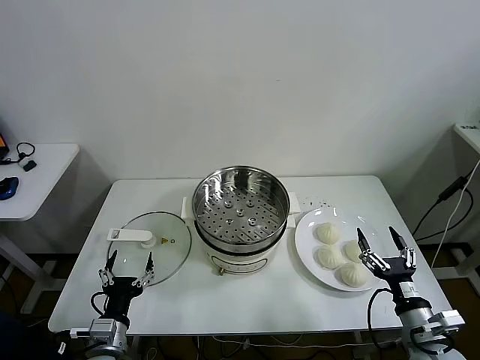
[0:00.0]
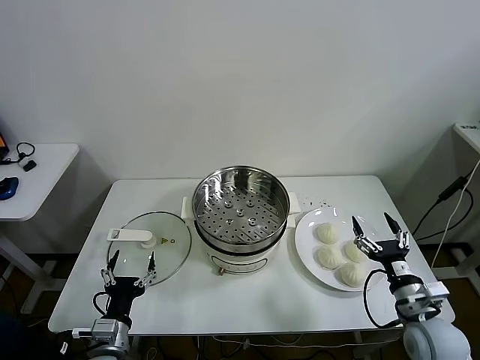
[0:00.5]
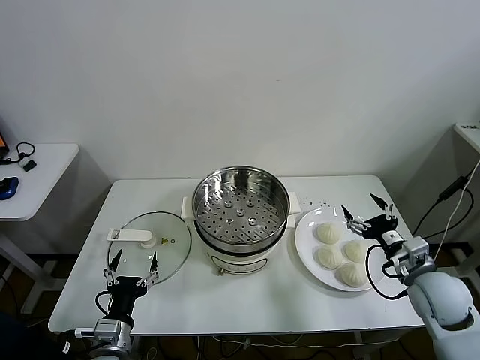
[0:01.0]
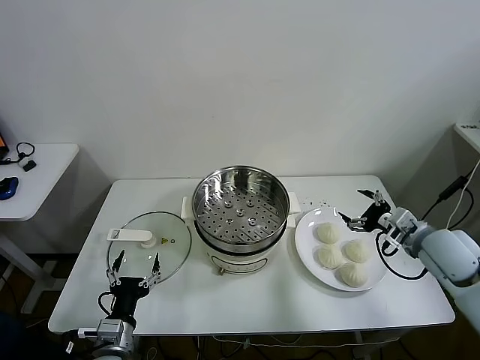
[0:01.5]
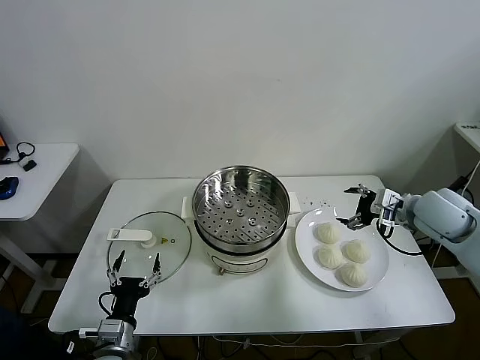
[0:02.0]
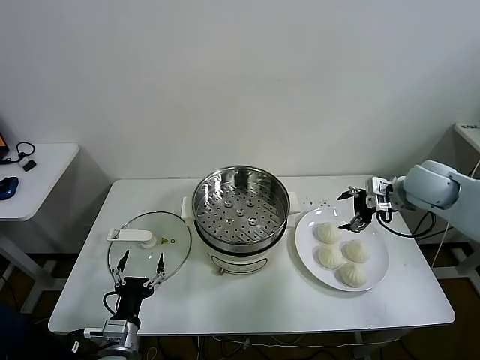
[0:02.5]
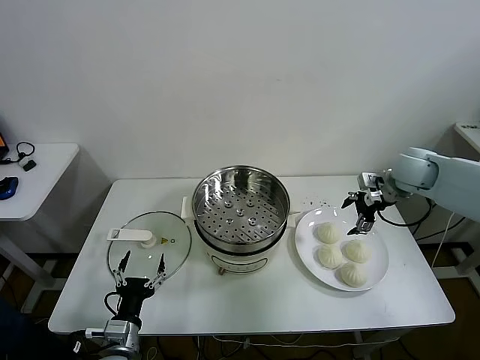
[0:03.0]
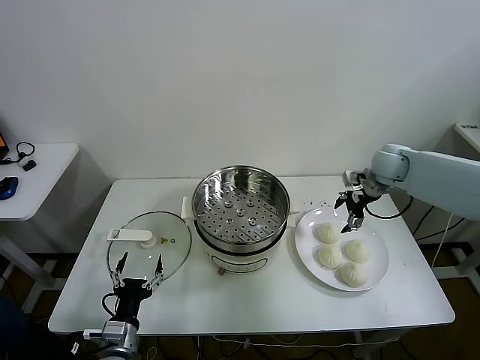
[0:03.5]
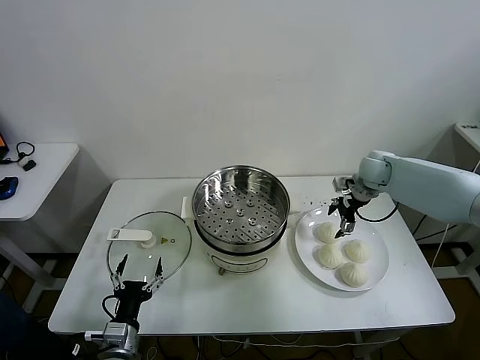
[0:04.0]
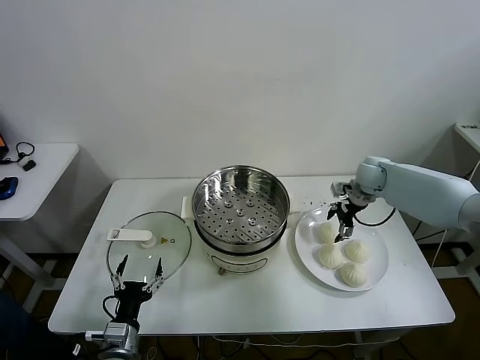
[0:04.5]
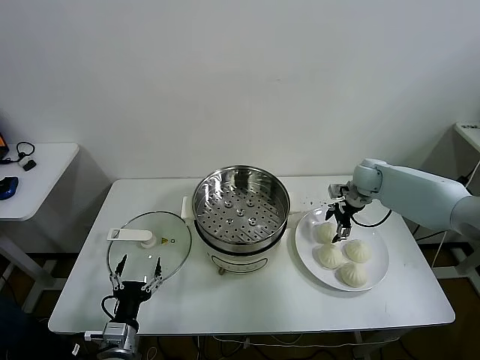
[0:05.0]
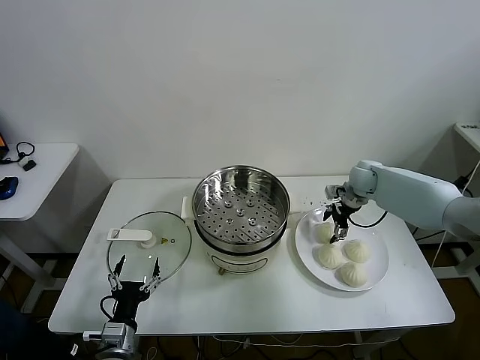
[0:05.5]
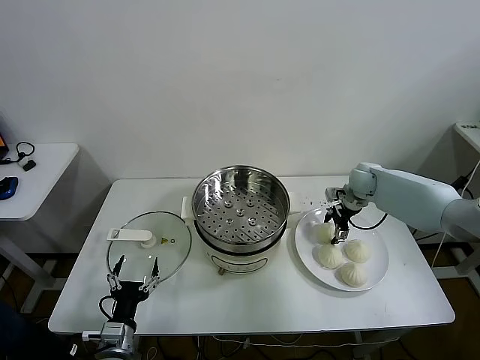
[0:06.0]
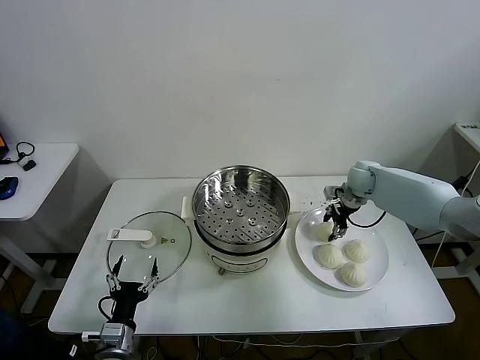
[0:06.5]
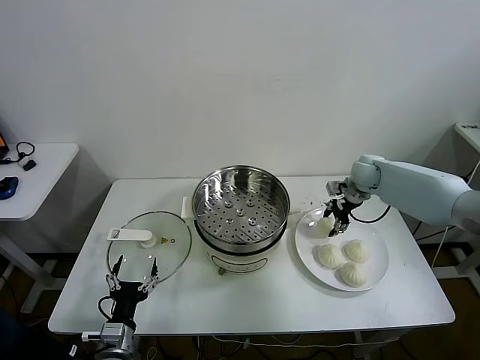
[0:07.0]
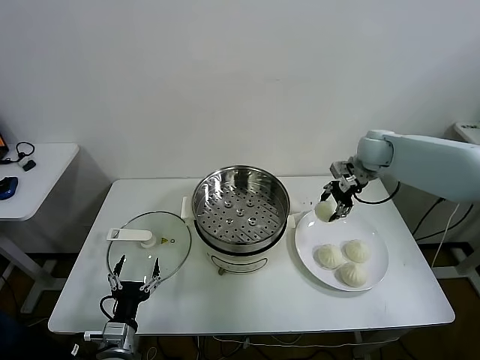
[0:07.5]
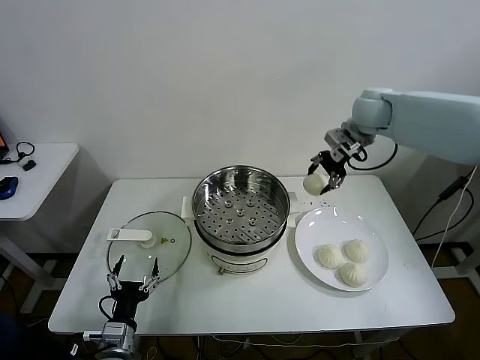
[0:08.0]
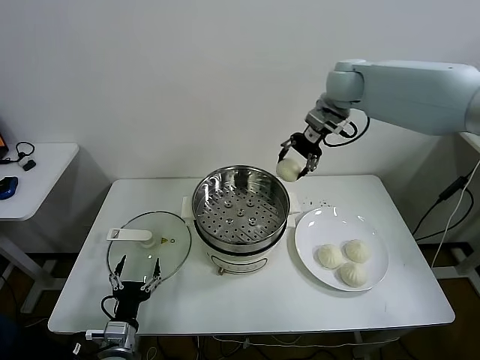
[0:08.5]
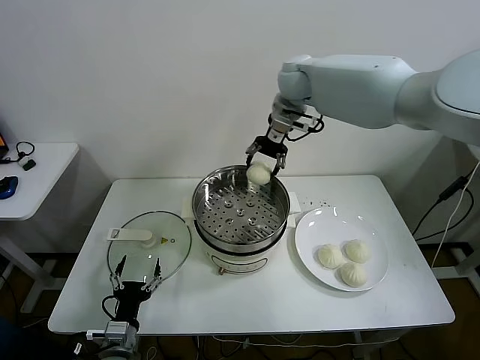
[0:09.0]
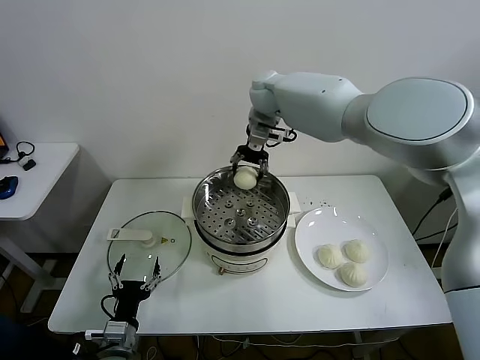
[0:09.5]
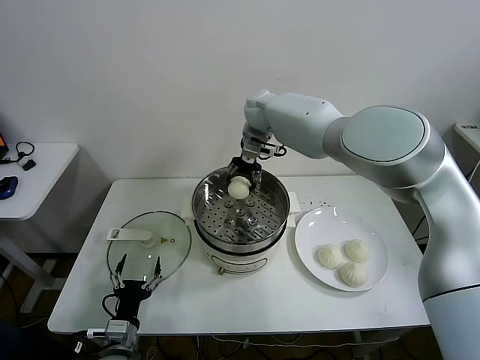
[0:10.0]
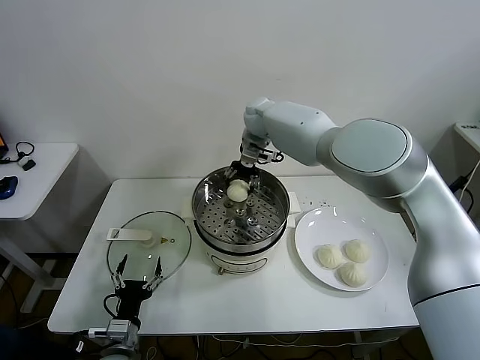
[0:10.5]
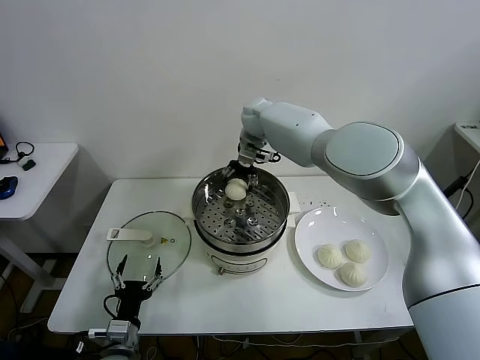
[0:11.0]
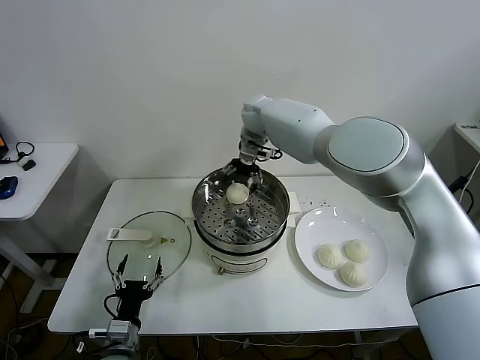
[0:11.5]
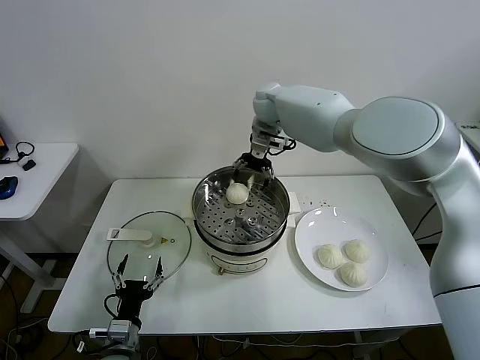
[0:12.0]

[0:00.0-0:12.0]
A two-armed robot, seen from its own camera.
Task of the whole recording: take steamed baozi put them in steamer.
Step, 0:00.0 to 0:06.0: Grasp the baozi in the plate with right gripper.
Step, 0:06.5 to 0:11.0: Place the baozi on the steamer with right gripper.
0:02.0 to 0:04.0: The right gripper heads forward, covering roughly 15 cm.
0:04.0 to 0:06.0: The grippers stay close to where they were, moving slightly.
0:06.0 to 0:08.0: The right gripper shifts roughly 25 cm upward, and closes.
0:08.0 to 0:10.0: The right gripper is displaced to the left by some 25 cm.
0:10.0 to 0:12.0: The right gripper opens its fingers.

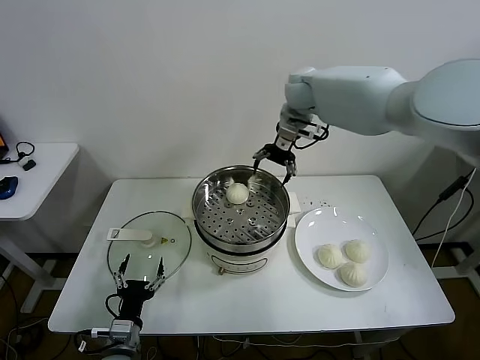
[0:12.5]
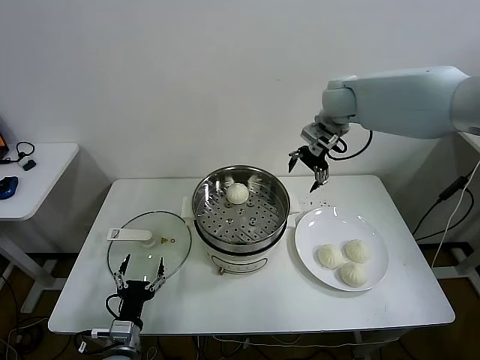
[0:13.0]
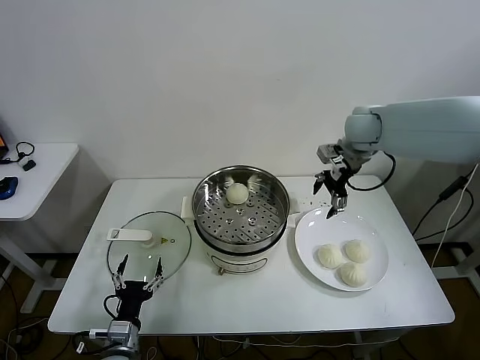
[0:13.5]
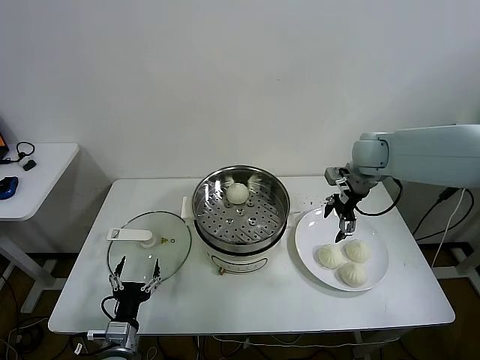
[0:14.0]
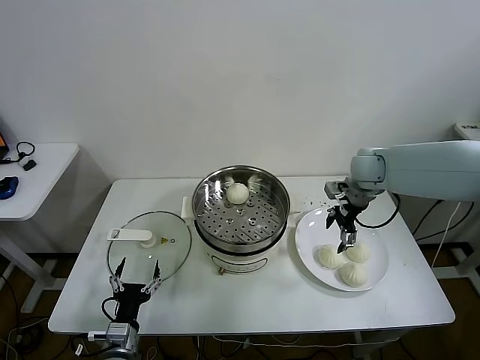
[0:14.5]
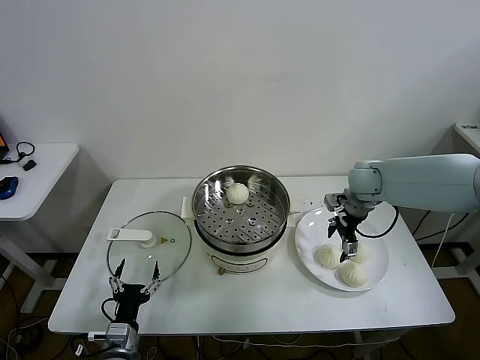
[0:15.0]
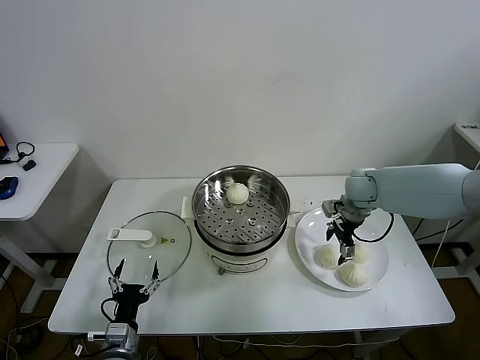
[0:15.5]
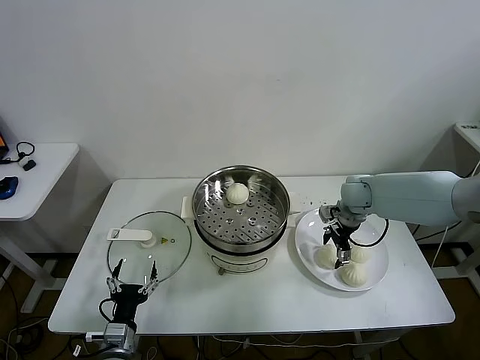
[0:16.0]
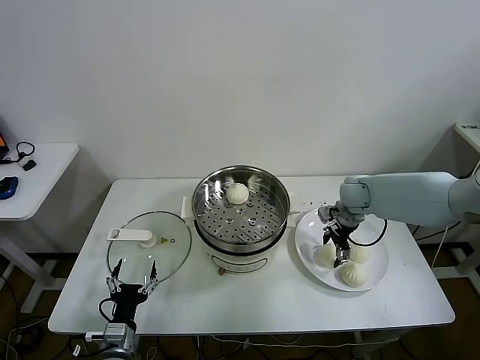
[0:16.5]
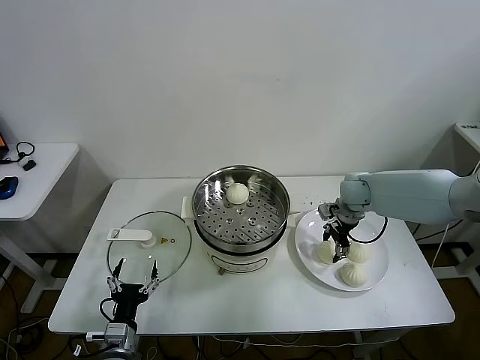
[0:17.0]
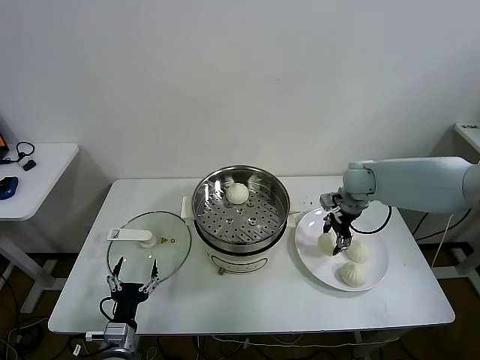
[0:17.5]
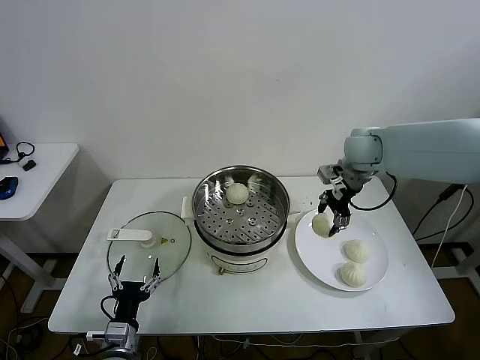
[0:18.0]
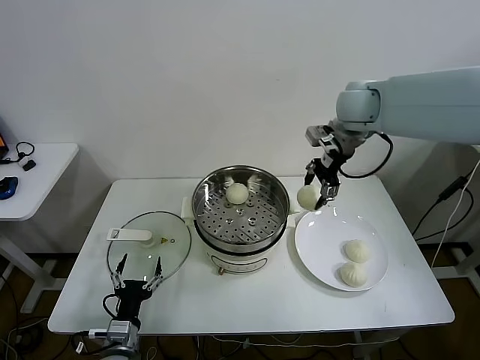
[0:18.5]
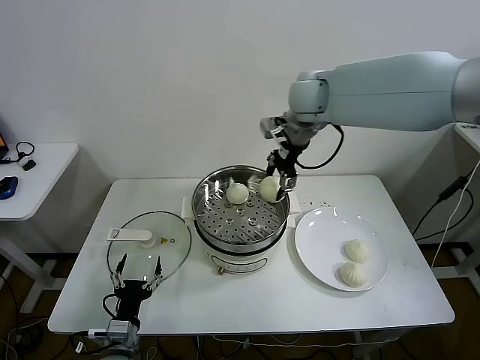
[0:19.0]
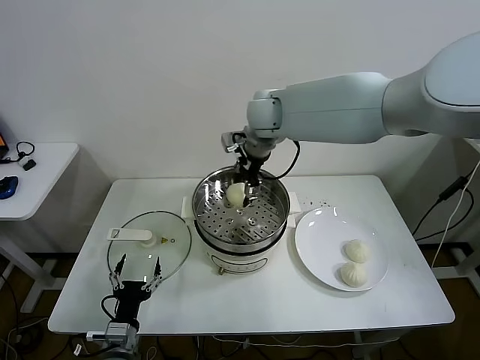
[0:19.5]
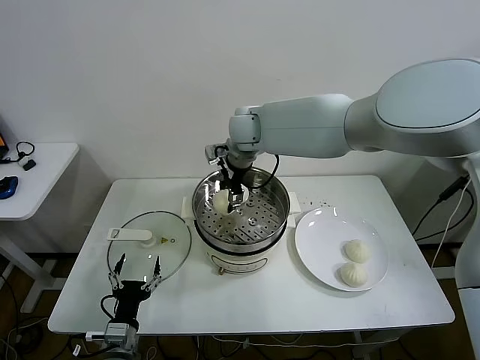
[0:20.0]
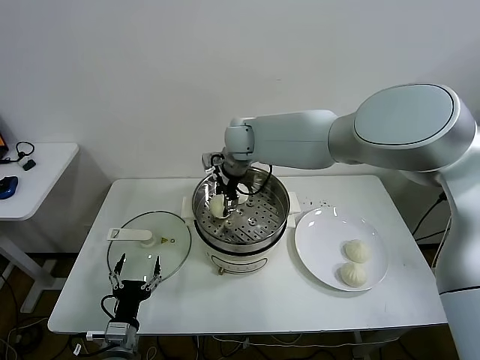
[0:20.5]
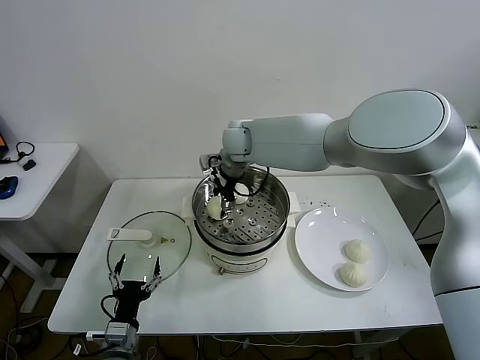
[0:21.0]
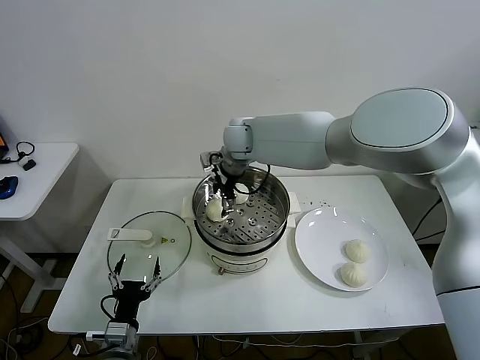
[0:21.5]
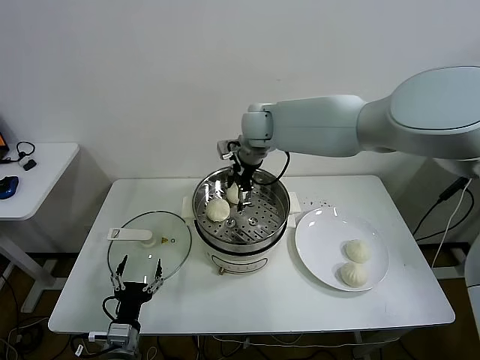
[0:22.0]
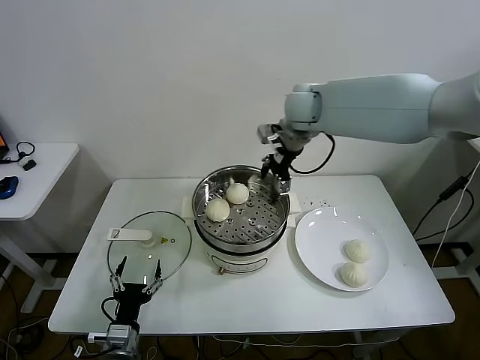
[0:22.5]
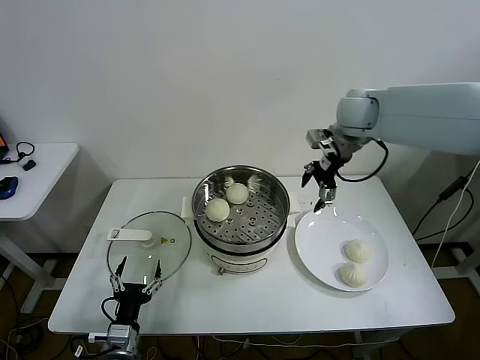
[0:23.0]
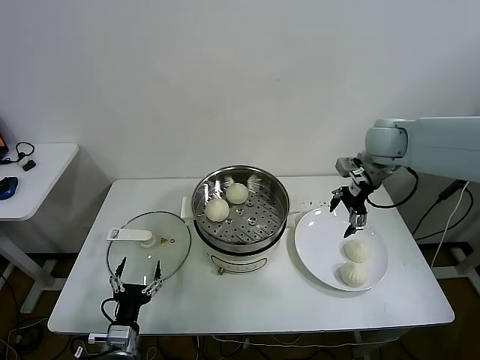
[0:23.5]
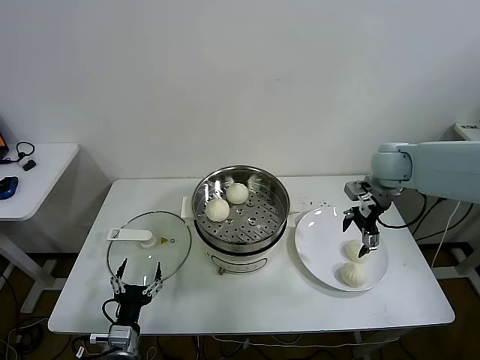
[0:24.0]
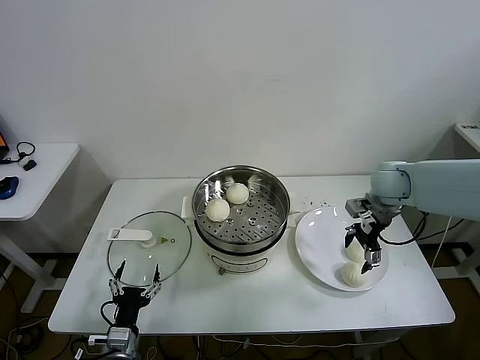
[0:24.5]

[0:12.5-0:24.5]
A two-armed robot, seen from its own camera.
Task of the whole recording: take steamed baozi put them in steamer.
Step, 0:12.5 to 0:16.5: Grasp the baozi in the plate with right gripper.
Step, 0:17.0 to 0:21.5: Place the baozi on the steamer with right gripper.
0:12.5 to 0:14.5: The right gripper goes roughly 25 cm downward, to the right and backward.
0:14.5 to 0:16.5: The right gripper shifts approximately 10 cm downward.
0:16.5 to 0:18.5: The right gripper moves upward, some 25 cm.
0:18.5 to 0:20.5: The right gripper shifts roughly 25 cm to the left and downward.
0:20.5 to 0:22.5: The right gripper is displaced to the right and upward by approximately 15 cm, and opens its fingers.
0:22.5 to 0:24.5: The right gripper shifts about 25 cm to the right, downward and backward.

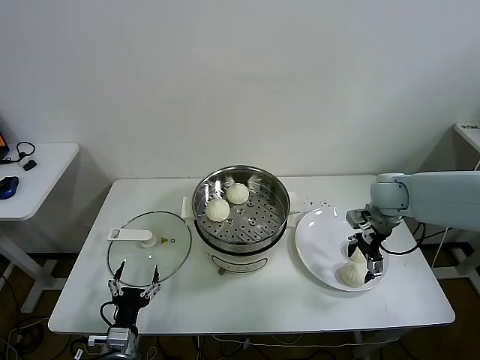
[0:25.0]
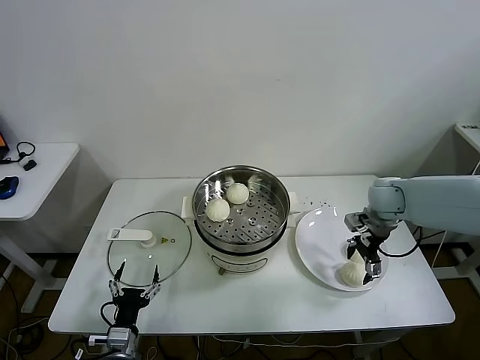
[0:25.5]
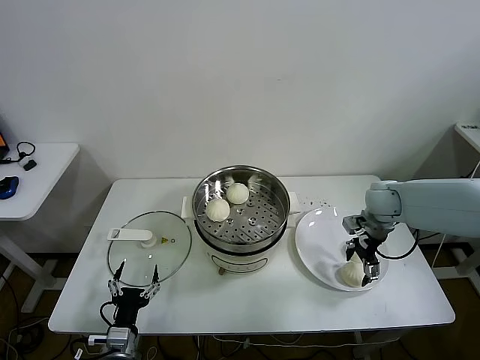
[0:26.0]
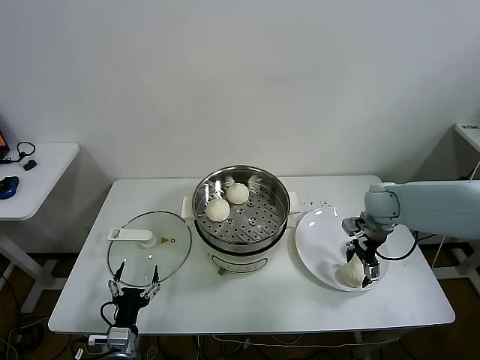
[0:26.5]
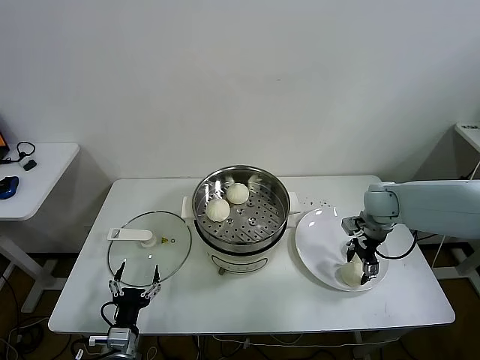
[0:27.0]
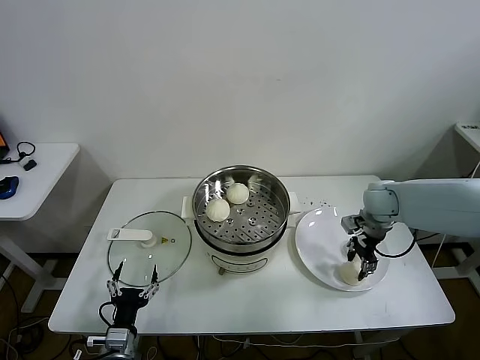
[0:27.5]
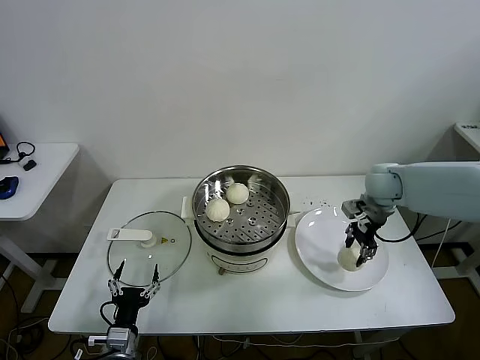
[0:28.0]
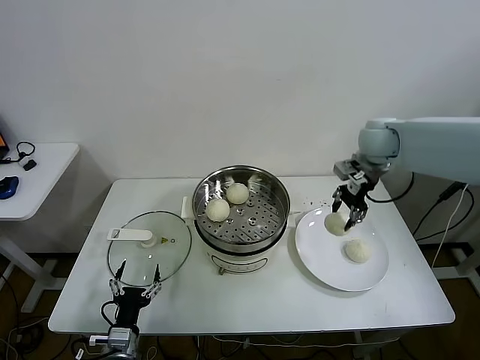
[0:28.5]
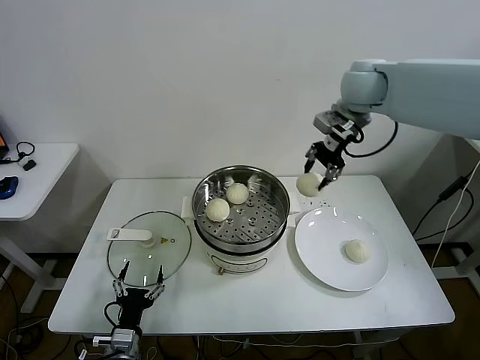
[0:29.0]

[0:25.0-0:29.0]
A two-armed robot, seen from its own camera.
Task of the whole recording: take steamed baozi put them in steamer.
Step, 0:25.0 to 0:27.0: Grasp the baozi in the plate with right gripper.
0:25.0 to 0:27.0: The grippers make only small movements.
0:27.0 to 0:29.0: The right gripper is displaced upward and to the left by roughly 30 cm, and closes its fingers.
